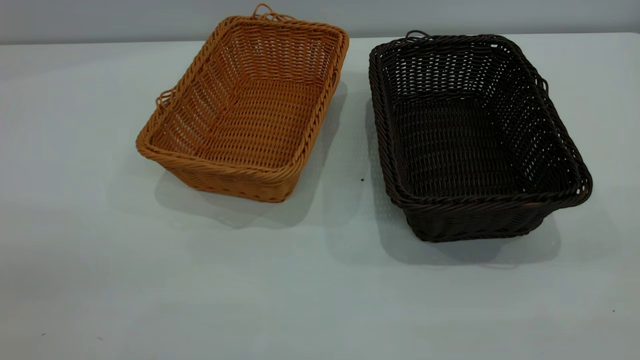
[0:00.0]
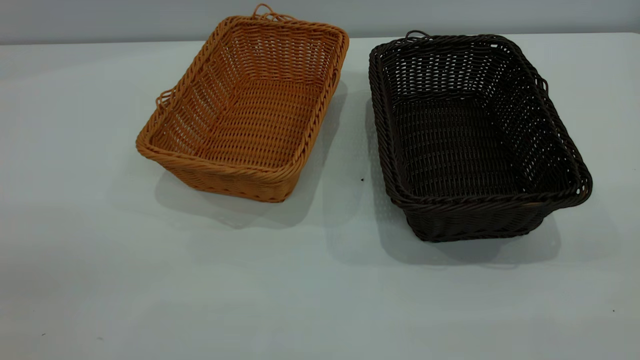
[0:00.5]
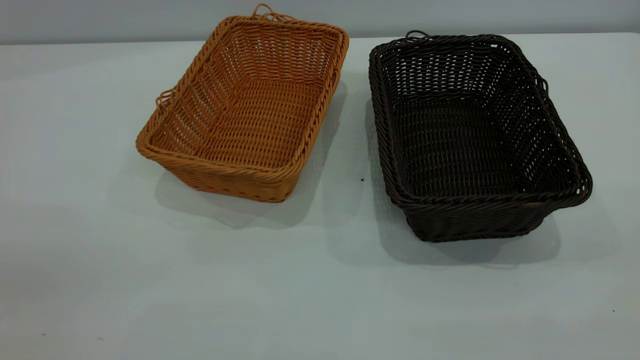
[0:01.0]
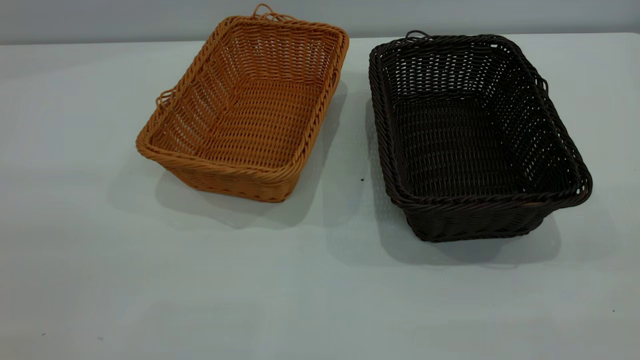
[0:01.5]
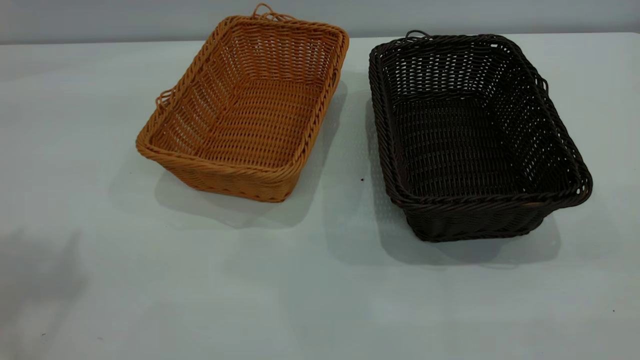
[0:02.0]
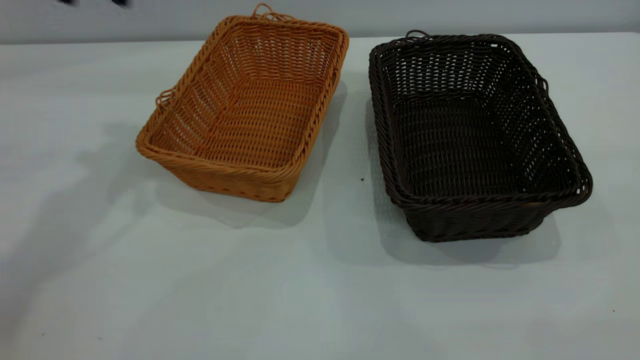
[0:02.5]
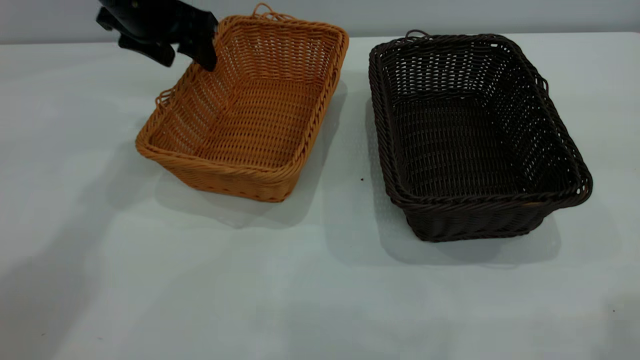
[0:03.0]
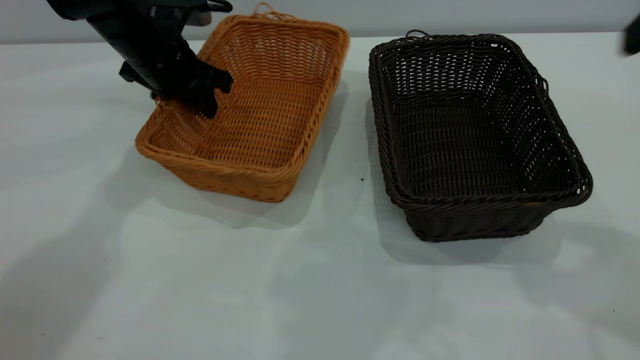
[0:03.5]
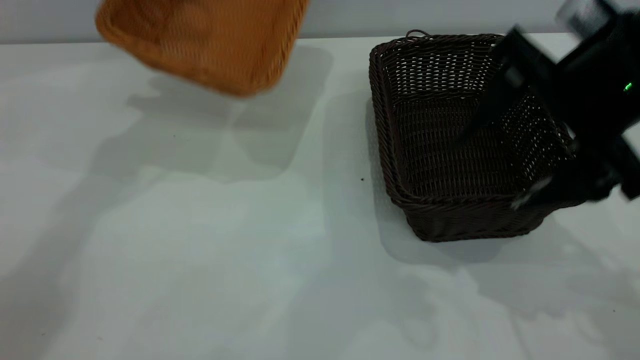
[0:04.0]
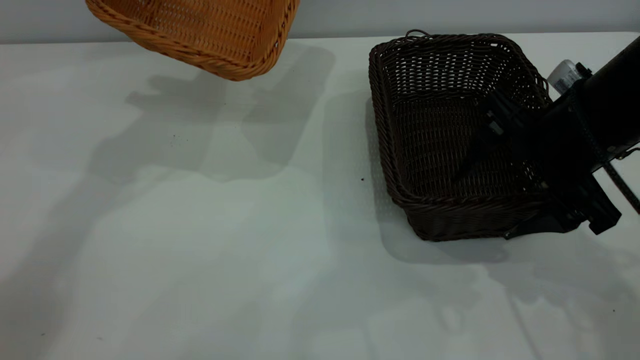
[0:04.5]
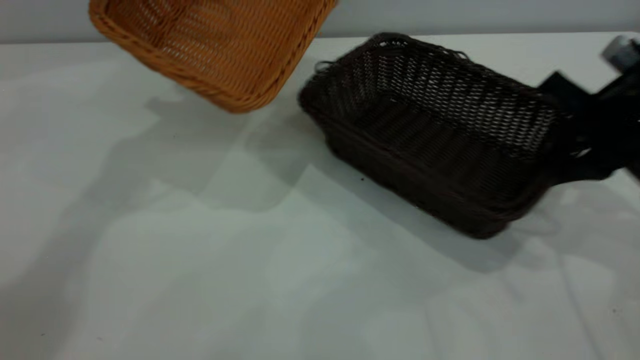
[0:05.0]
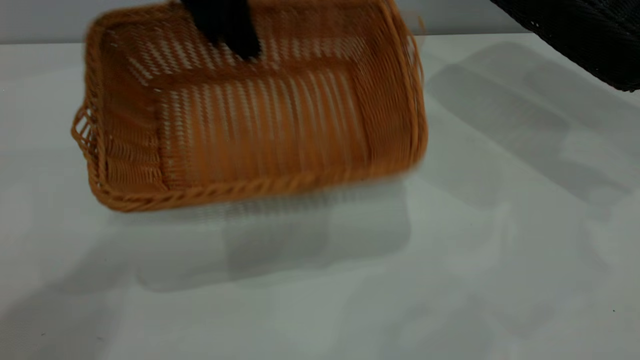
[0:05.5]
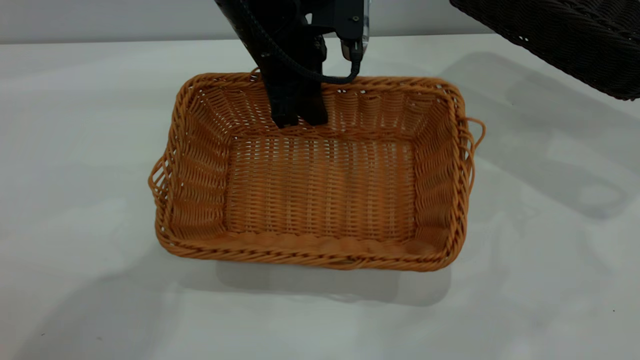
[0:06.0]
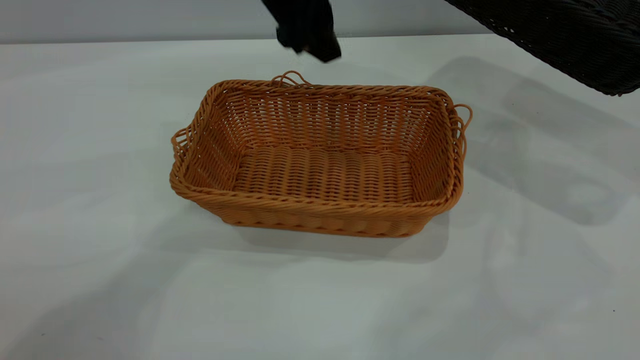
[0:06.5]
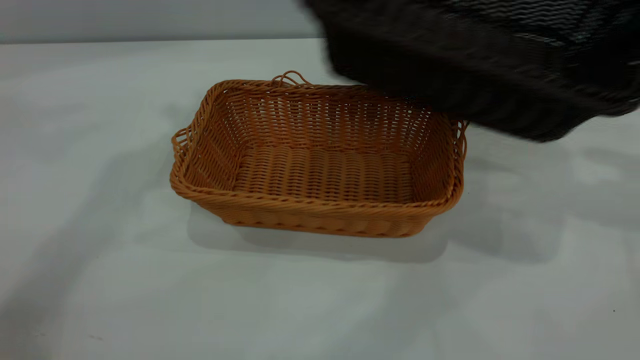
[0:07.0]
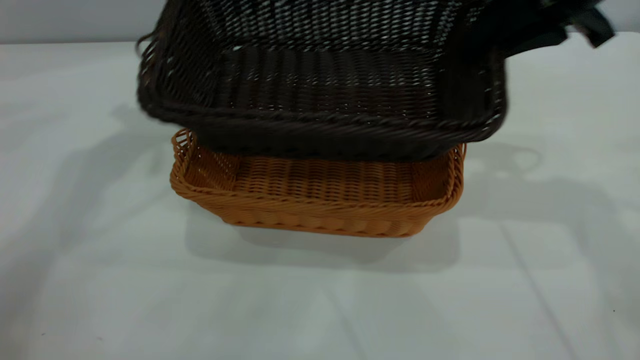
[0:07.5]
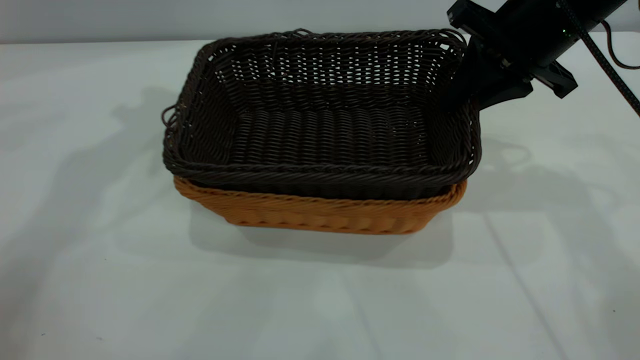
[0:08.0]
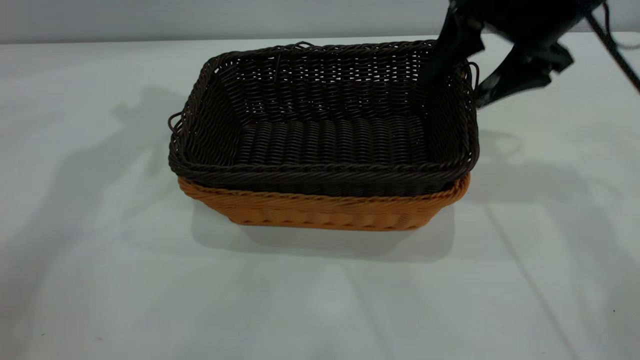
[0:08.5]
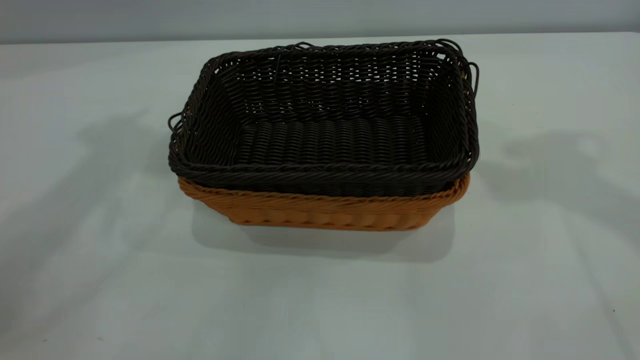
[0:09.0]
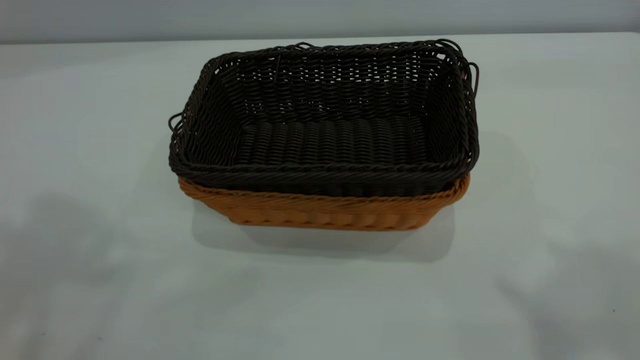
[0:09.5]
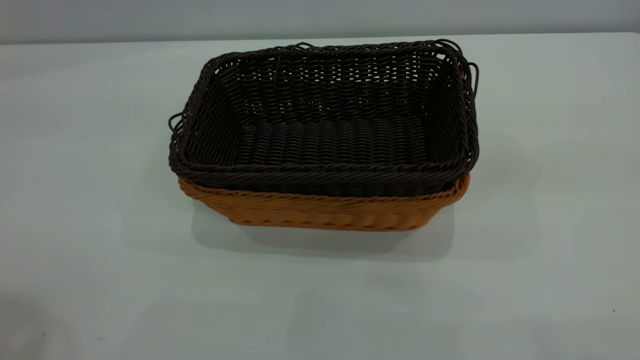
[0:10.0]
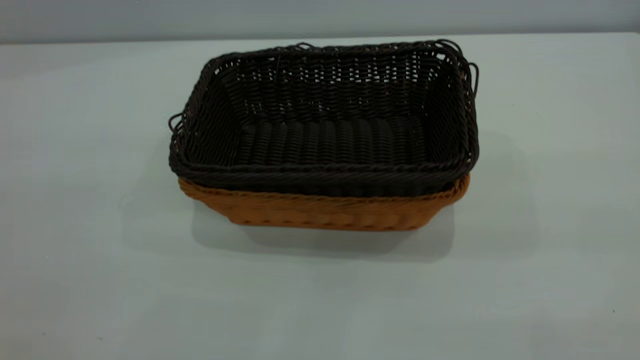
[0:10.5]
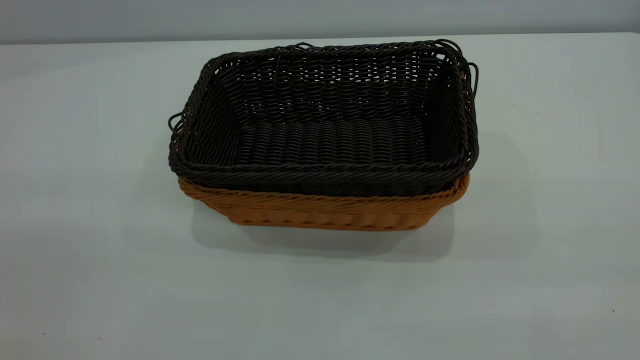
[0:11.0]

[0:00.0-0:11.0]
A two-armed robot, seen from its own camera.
Task of the whole recording: the left gripper grasp the brown basket and place it in the center of the table, the right gripper grasp the black basket and place it inside the brown one.
Step, 0:00.0 to 0:05.0: Pick up the light basket with the right gripper.
Step, 0:05.5 to 0:06.0: Place the light-colored basket in the center.
Step, 0:07.0 to 0:08.5: Place the dark basket on top of the light basket.
0:02.0 to 0:03.5: The right gripper heads forward, covering roughly 25 cm; the left gripper is displaced downward and forward by about 40 cm, and closes up.
0:03.5 to 0:05.5: The left gripper heads upward and to the right, covering roughly 15 cm, while the right gripper heads to the right and forward, covering some 20 cm, and closes its fingers.
0:05.5 to 0:07.5: The right gripper travels to the left by some 25 cm. The left gripper is displaced upward and to the left by some 15 cm, and opens up.
0:07.5 to 0:09.0: The left gripper moves upward and backward, approximately 20 cm, while the right gripper moves upward, some 20 cm, and opens up.

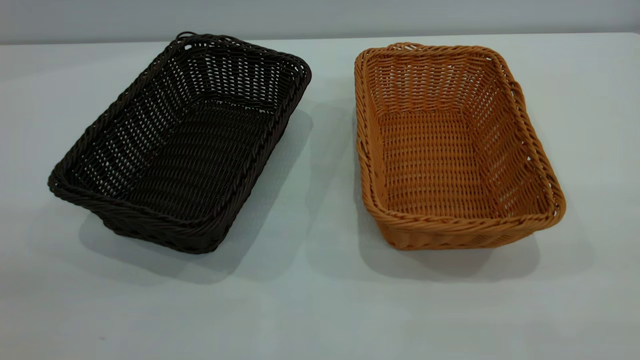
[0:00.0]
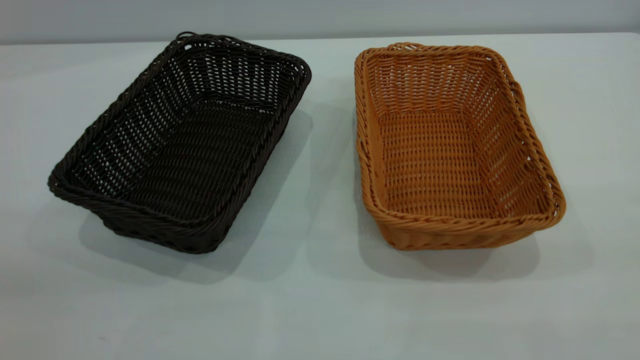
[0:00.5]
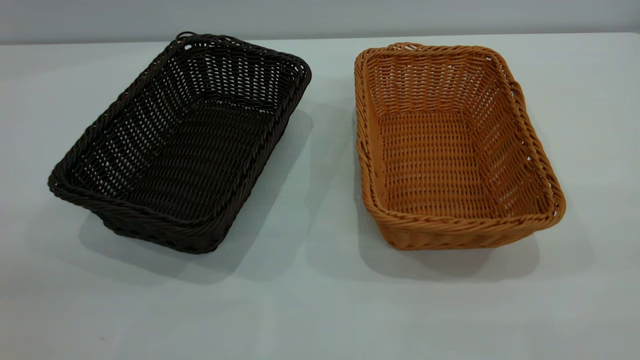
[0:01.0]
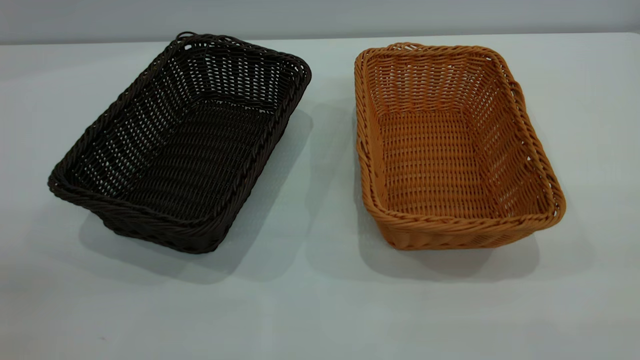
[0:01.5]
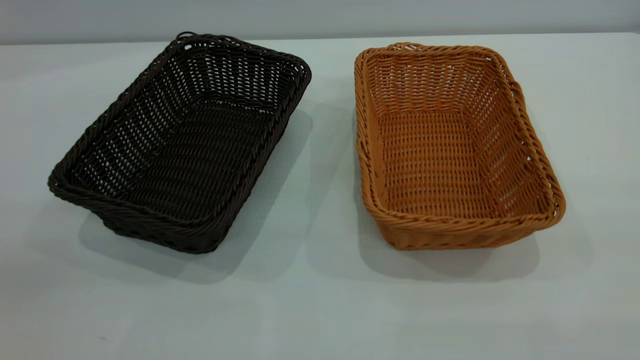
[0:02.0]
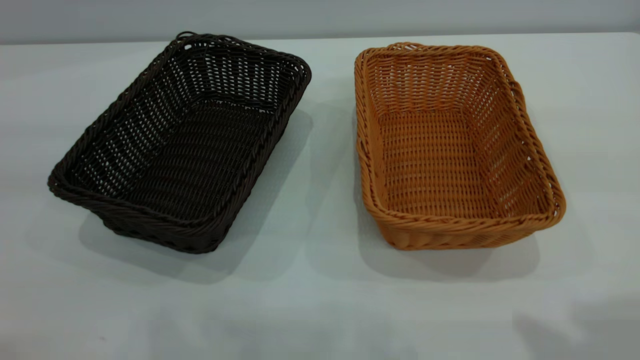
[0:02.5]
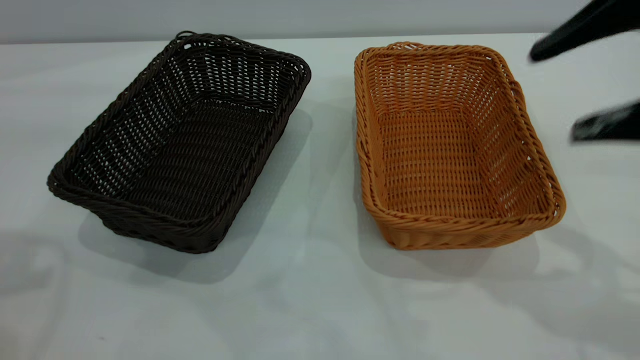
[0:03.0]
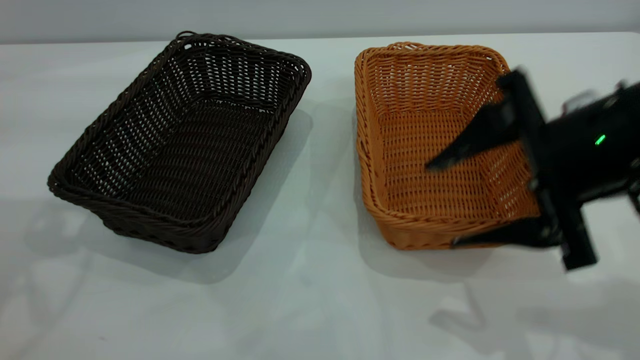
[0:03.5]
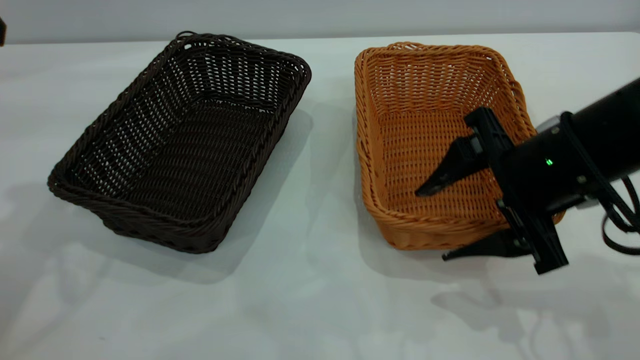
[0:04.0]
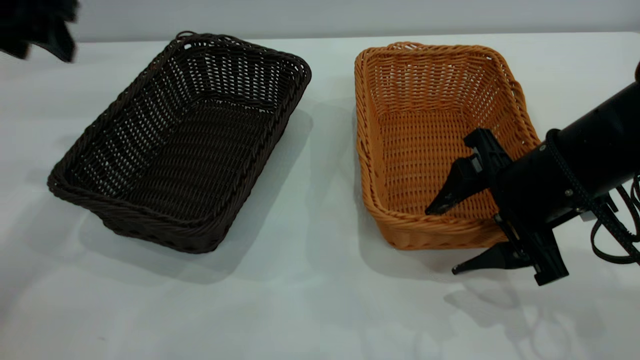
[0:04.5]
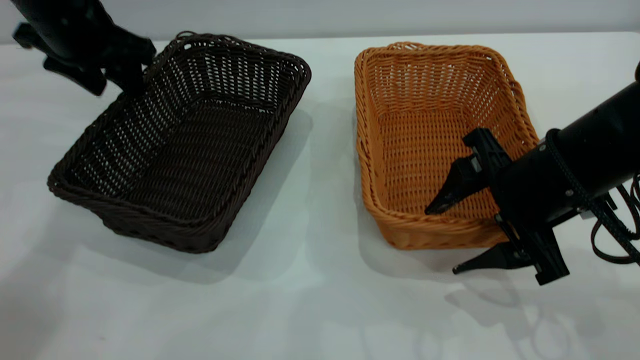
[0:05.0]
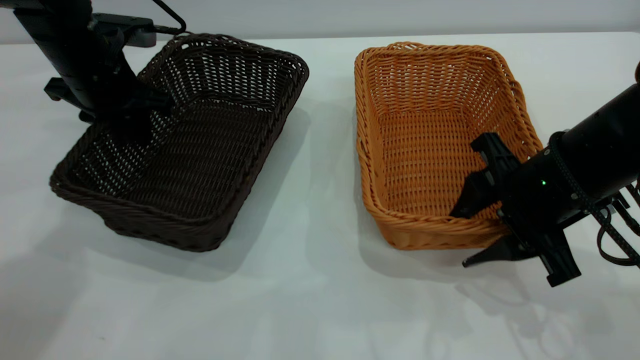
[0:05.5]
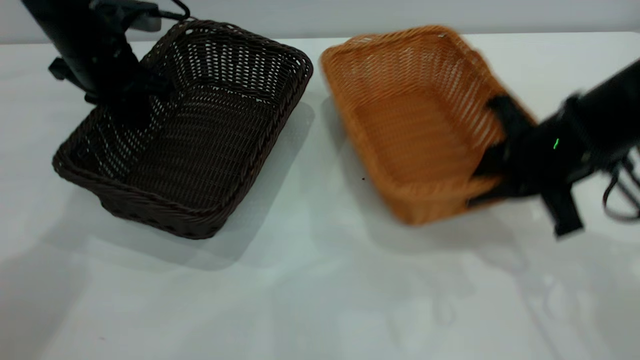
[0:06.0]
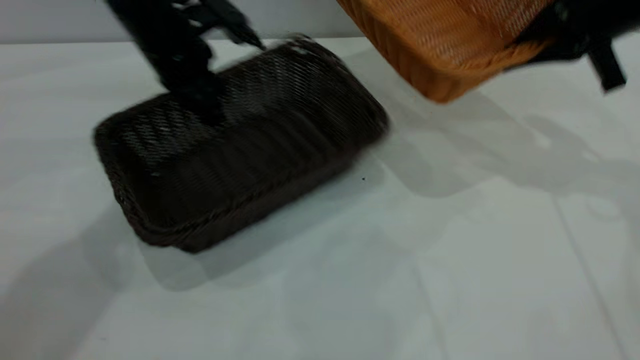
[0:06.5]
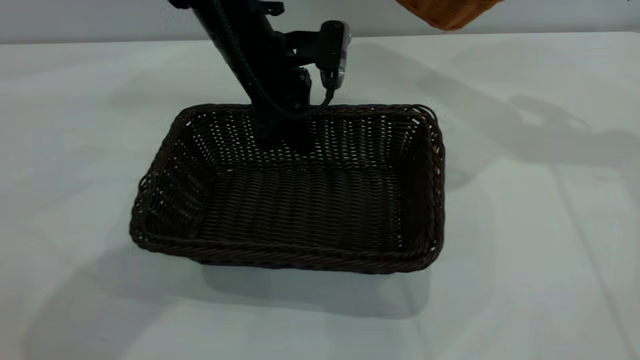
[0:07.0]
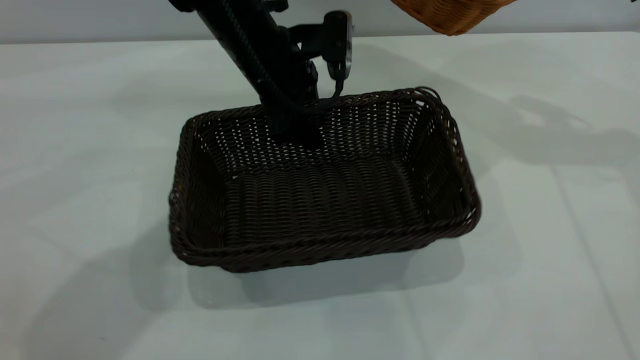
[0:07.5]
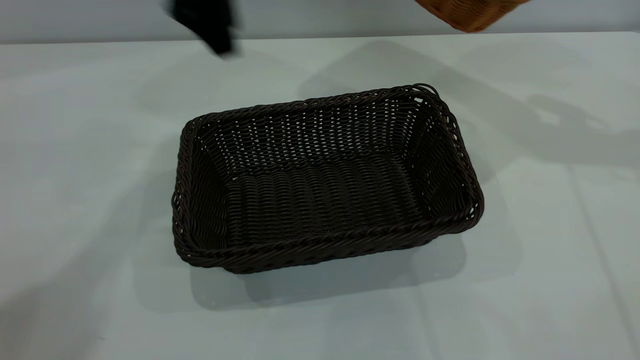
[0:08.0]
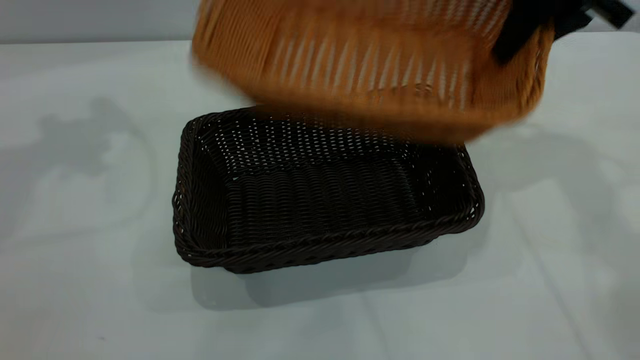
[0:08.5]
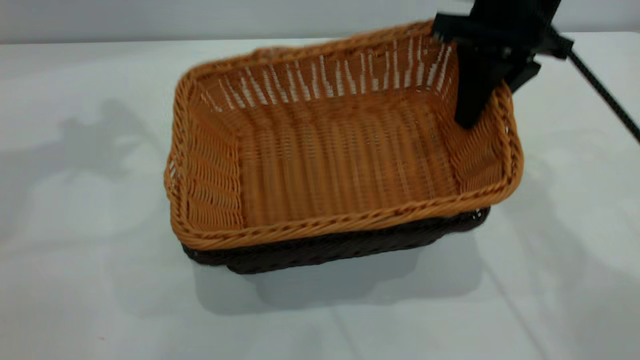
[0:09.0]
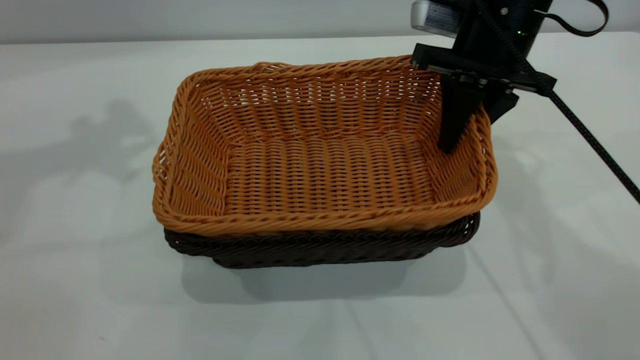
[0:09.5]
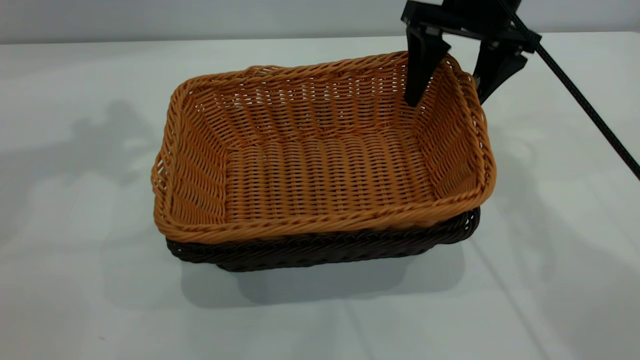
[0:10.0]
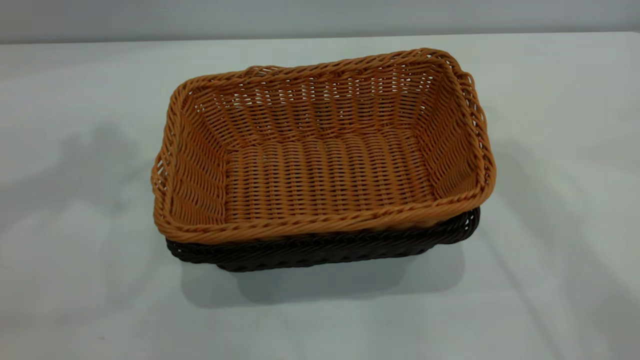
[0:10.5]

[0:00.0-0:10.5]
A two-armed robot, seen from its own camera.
Task of the whole recording: the left gripper grasp the black basket and place it in the center of the table, the right gripper grasp the brown basket and place it inside the black one.
Step, 0:00.0 to 0:06.0: Pick up the light basket with the right gripper.
Step, 0:06.5 to 0:07.5: Move the dark basket to the center of view.
Step, 0:08.0 to 0:10.0: Place the light basket on the dark basket.
0:02.0 to 0:04.0: The right gripper is displaced forward and downward by some 35 cm, and opens its fingers.
0:04.0 to 0:06.5: The right gripper goes approximately 20 cm forward, to the right and upward, and closes its fingers, while the left gripper heads downward, forward and to the right, covering about 25 cm, and closes.
0:06.5 to 0:08.5: The left gripper shifts roughly 30 cm upward and to the left, and opens. Meanwhile the right gripper shifts roughly 5 cm to the left.
0:08.5 to 0:10.5: The left gripper heads upward and backward, covering approximately 15 cm; the right gripper is displaced upward by approximately 15 cm, and opens.
